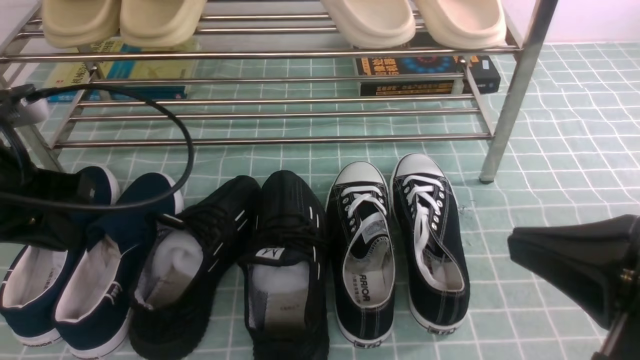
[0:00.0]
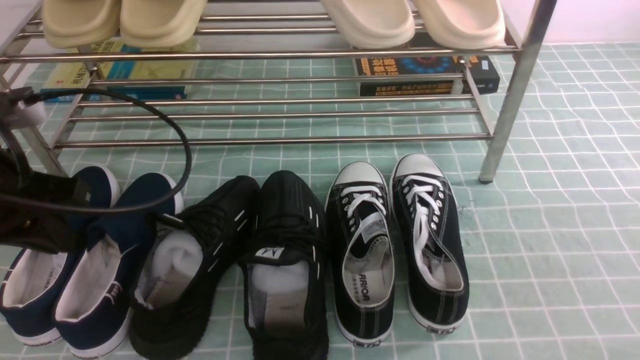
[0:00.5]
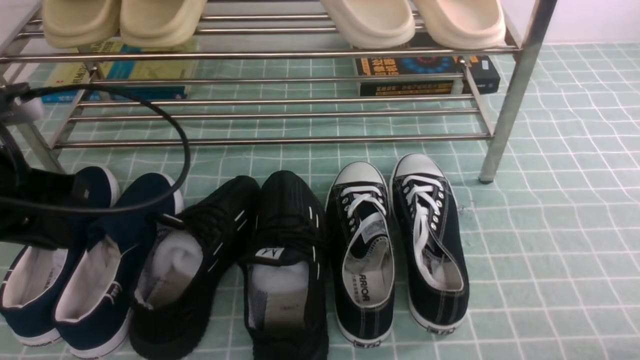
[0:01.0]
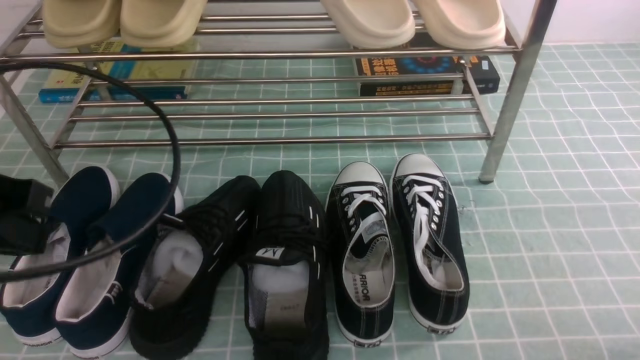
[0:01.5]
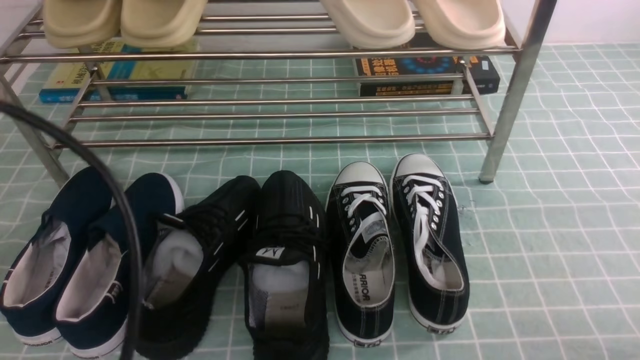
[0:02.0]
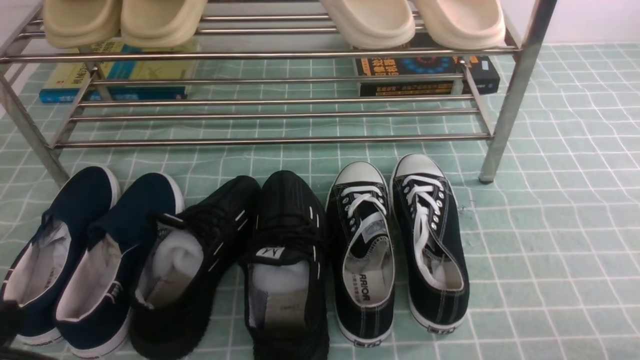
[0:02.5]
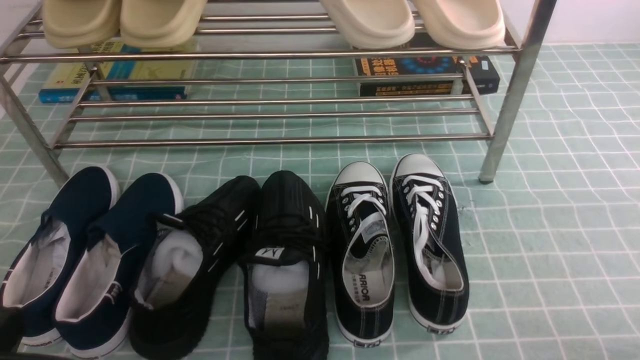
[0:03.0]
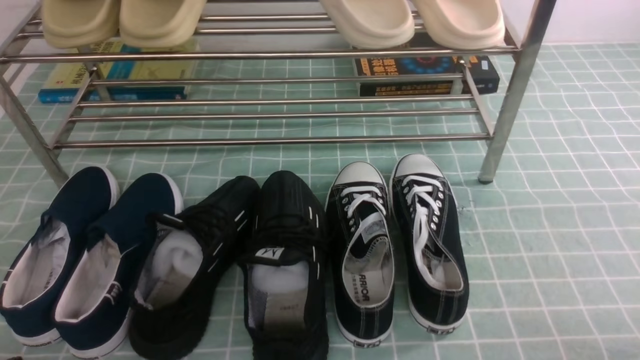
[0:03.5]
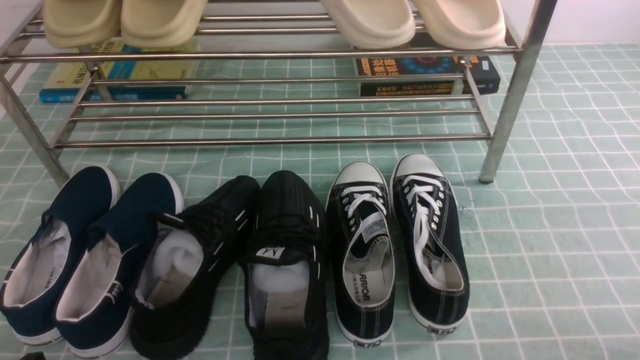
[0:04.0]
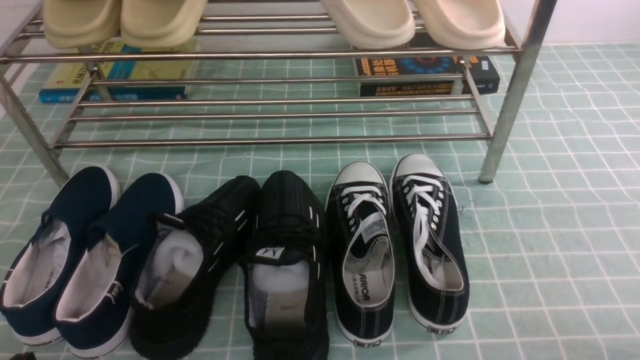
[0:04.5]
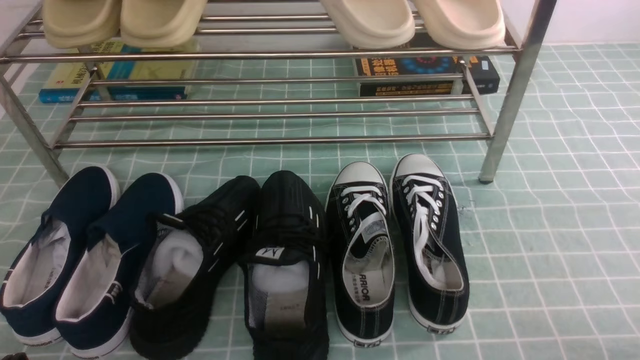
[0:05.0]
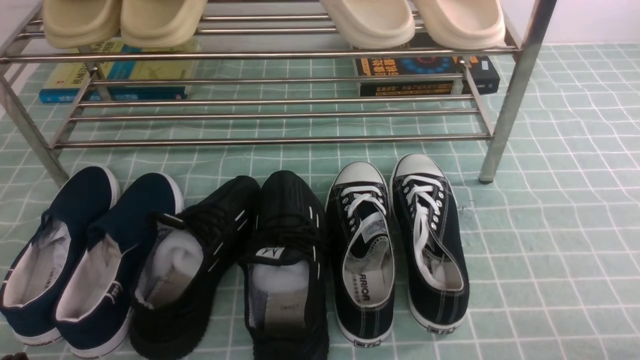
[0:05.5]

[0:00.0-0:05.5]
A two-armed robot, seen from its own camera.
0:00.0 to 0:02.0: The left gripper is displaced backward and upward by about 20 cm. The right gripper is displaced downward and to the right by about 20 cm.
0:02.0 to 0:03.5: The left gripper heads downward, covering roughly 20 cm.

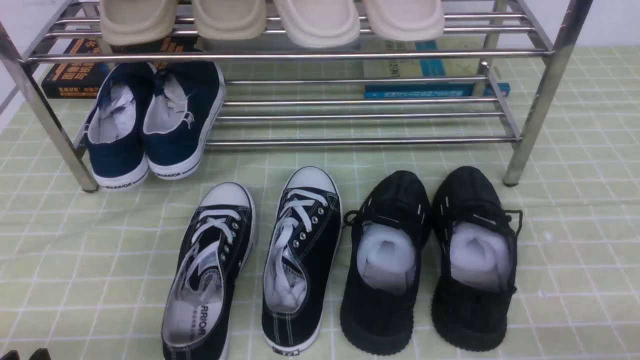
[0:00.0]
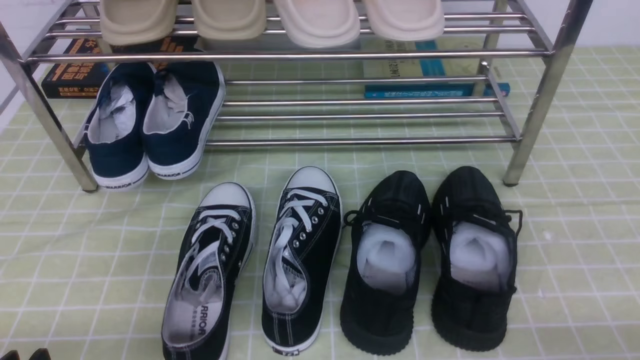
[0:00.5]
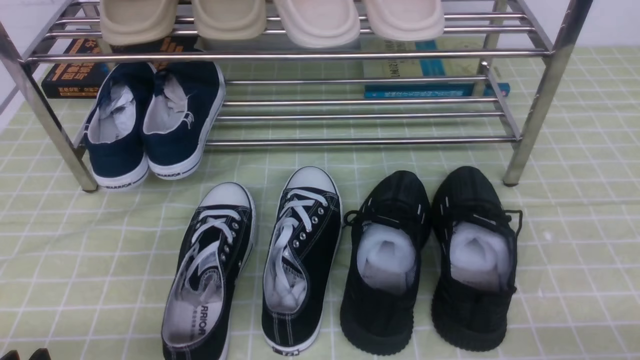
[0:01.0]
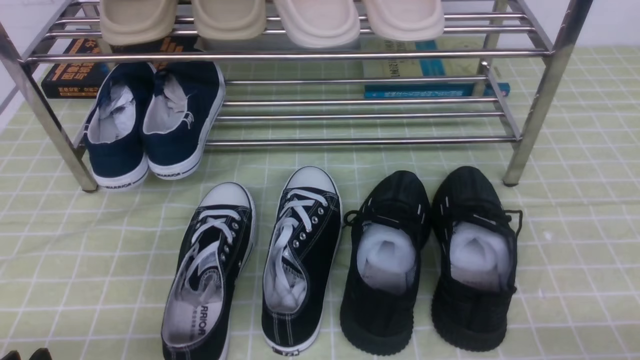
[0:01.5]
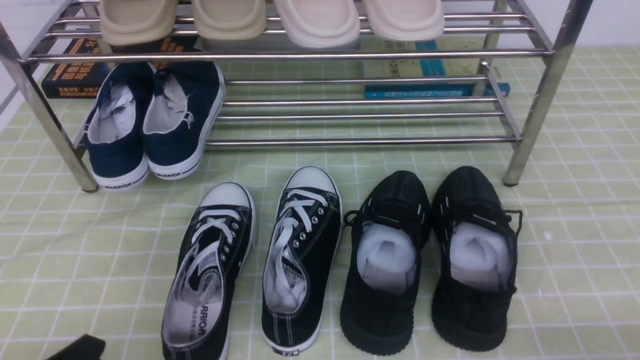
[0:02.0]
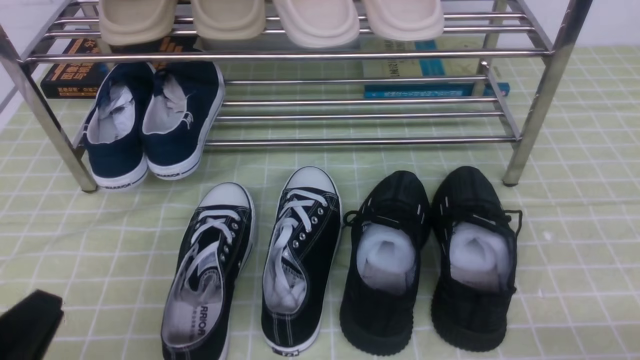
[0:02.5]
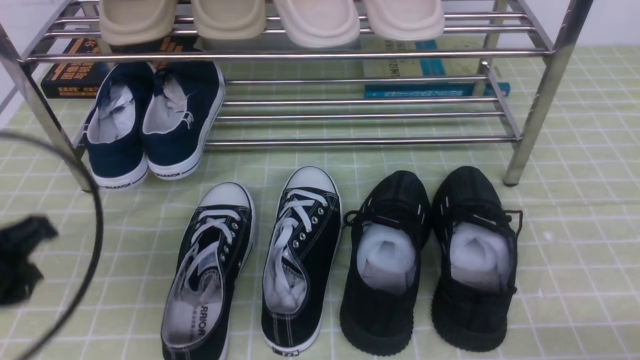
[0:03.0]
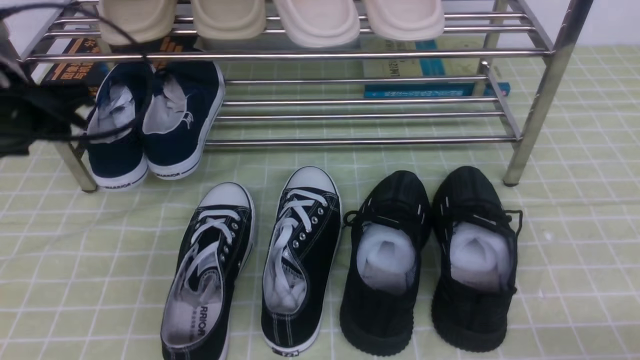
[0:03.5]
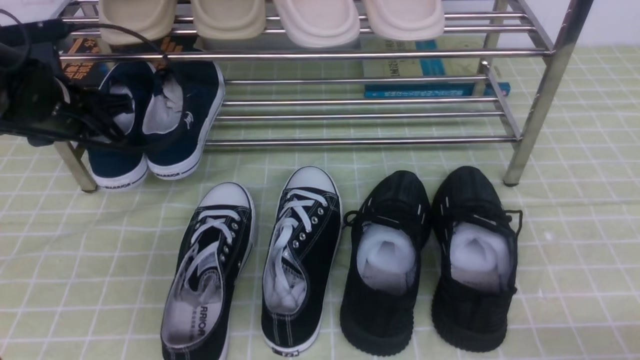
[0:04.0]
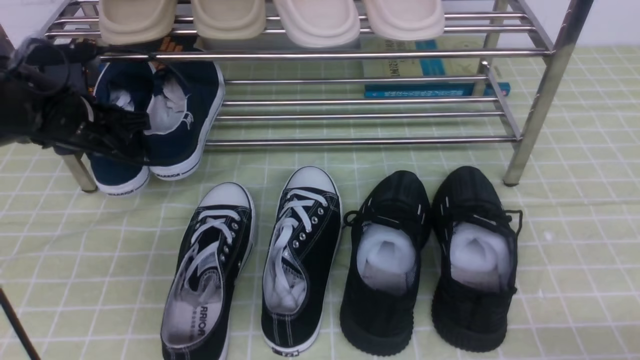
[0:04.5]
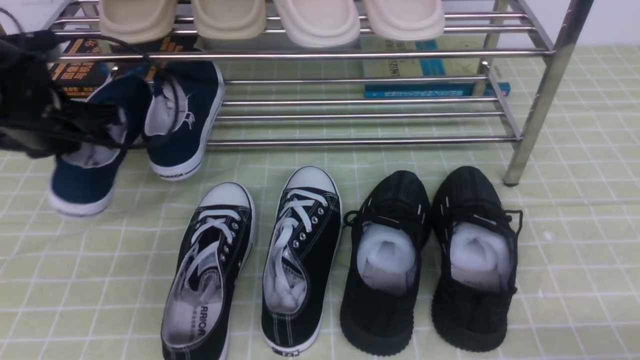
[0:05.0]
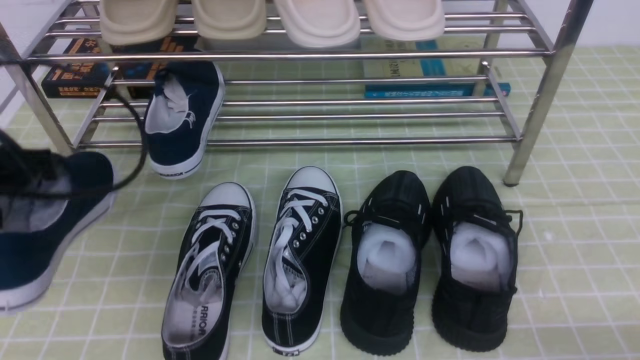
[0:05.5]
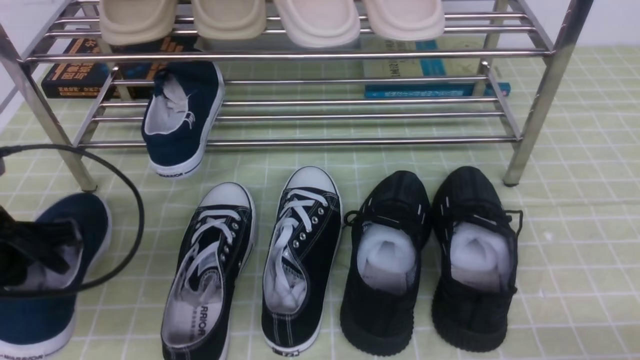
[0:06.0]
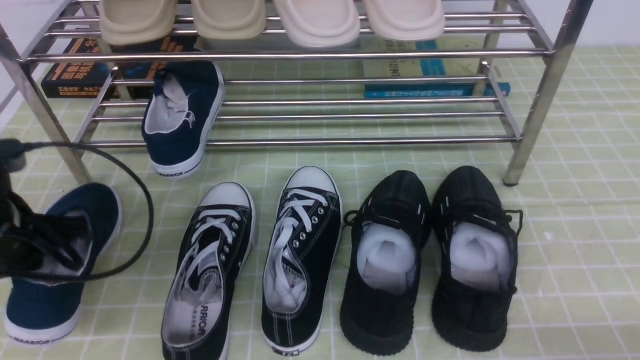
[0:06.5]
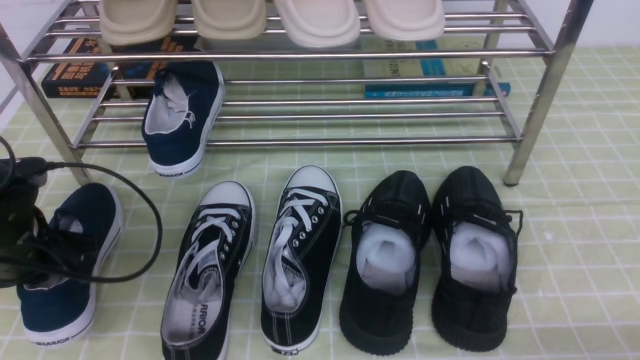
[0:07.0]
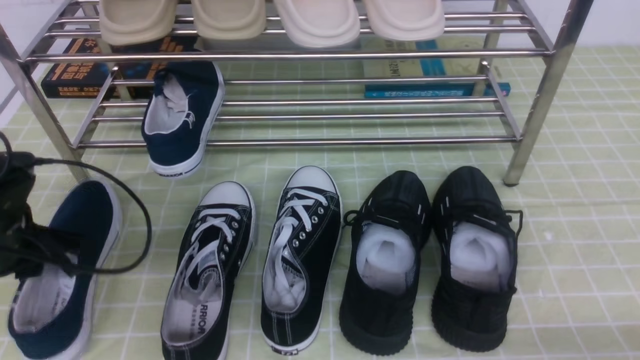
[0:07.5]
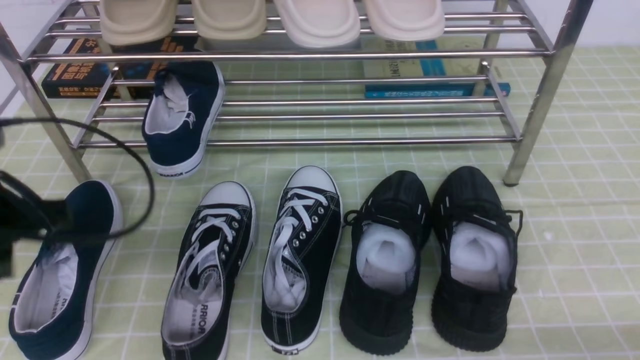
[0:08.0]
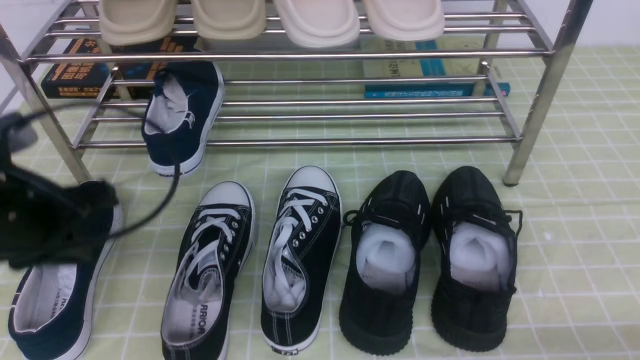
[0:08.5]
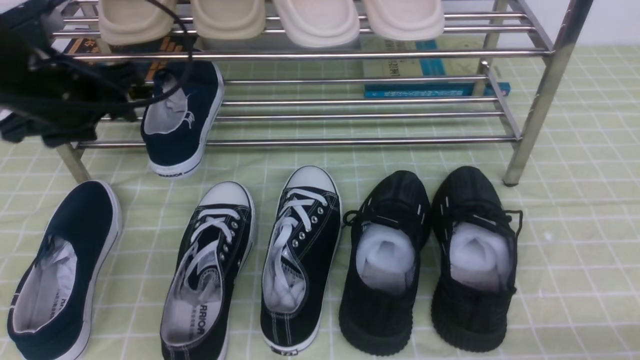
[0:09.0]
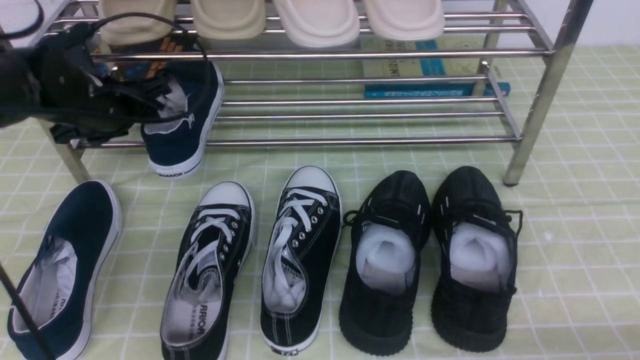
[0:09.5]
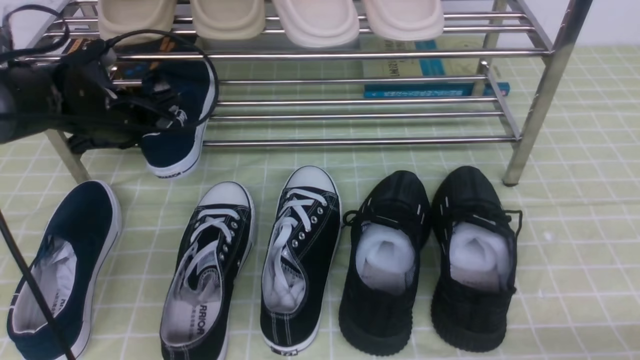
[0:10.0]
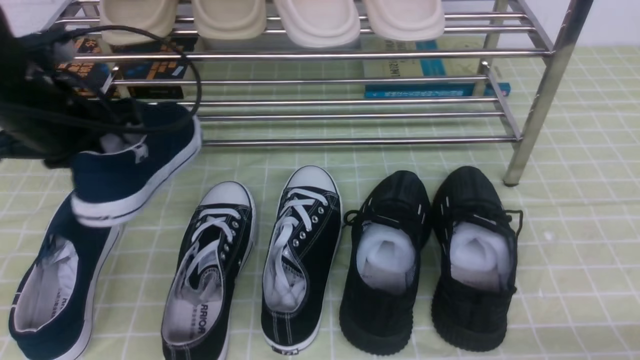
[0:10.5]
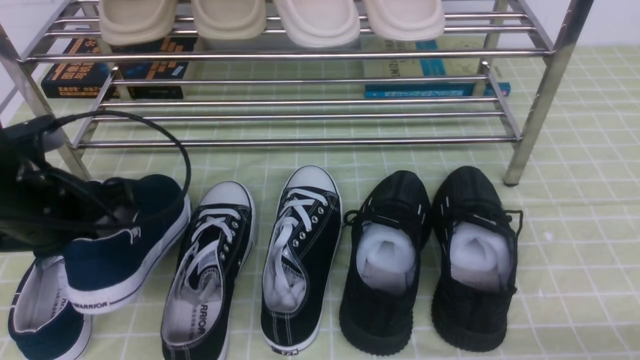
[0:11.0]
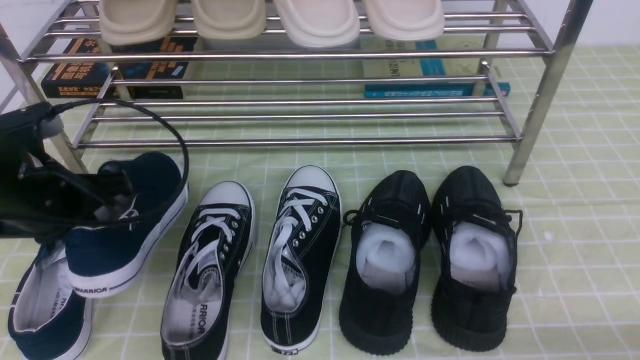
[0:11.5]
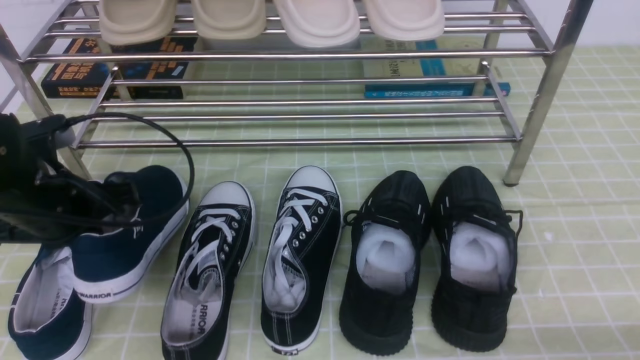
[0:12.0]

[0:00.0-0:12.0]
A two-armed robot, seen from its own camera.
Step, 0:00.0 to 0:04.5: use the left arm to clamp a shoe on the left side of the shoe rack.
Step, 0:05.0 to 0:07.5: Use your left arm to remove the clamped shoe from the shoe rack and put it down.
Step, 0:08.0 to 0:09.5: use the left arm to clamp a shoe on the left side of the shoe rack.
0:02.0 to 0:04.0: The left gripper is displaced forward by roughly 30 cm.
0:04.0 to 0:06.0: The left gripper is displaced backward by some 15 cm, and closes.
0:06.0 to 0:08.0: The left gripper opens, then closes again.
0:08.0 to 0:10.0: The left gripper goes roughly 20 cm forward, and opens, then closes again.
0:10.0 to 0:12.0: The left gripper is displaced backward by about 10 cm.

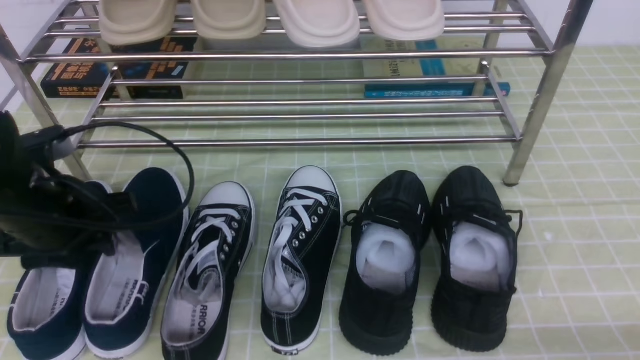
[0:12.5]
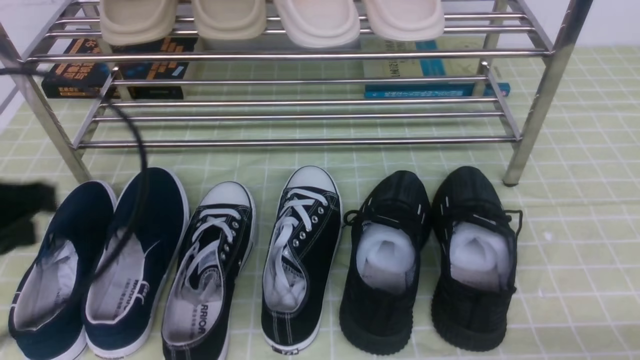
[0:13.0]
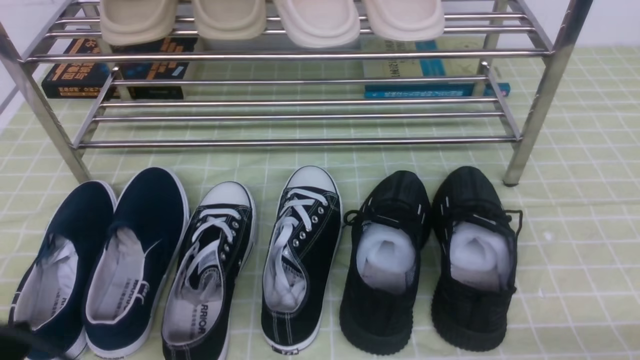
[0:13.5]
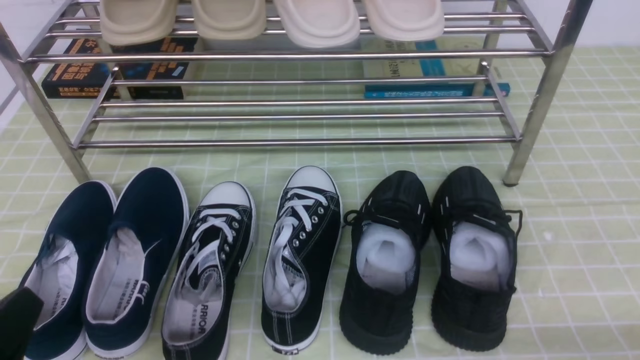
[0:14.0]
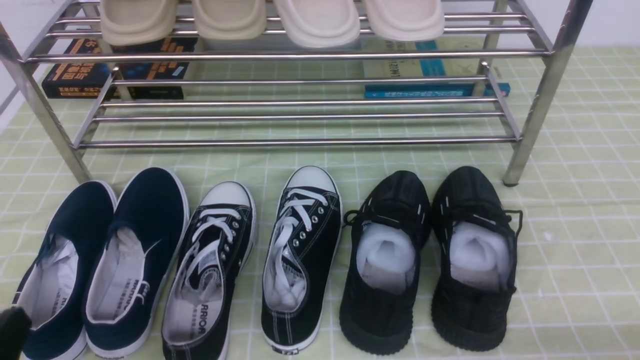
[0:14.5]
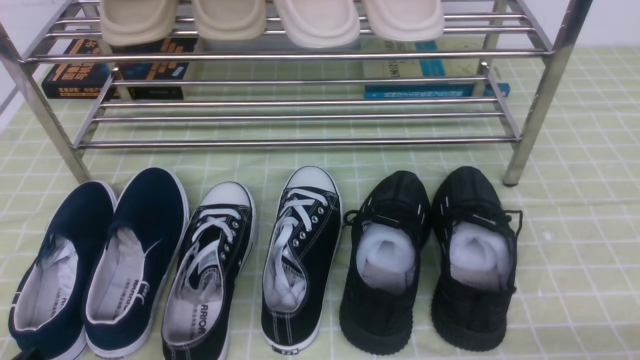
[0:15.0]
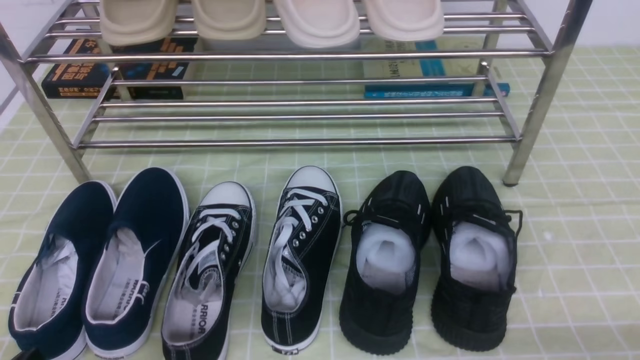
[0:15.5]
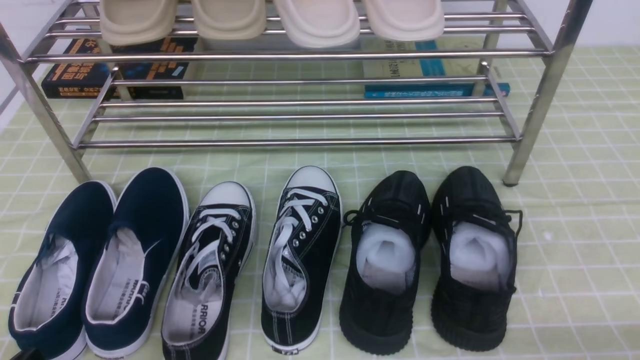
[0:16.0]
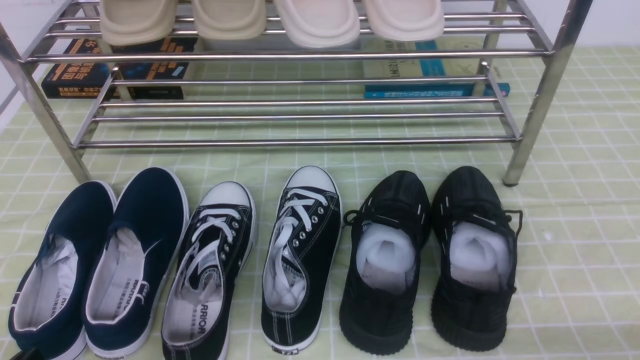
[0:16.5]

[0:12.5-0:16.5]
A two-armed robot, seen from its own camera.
0:12.5 to 0:14.5: The left gripper heads backward, covering some 20 cm, and closes up.
0:14.5 to 0:16.5: The grippers make only small movements.
